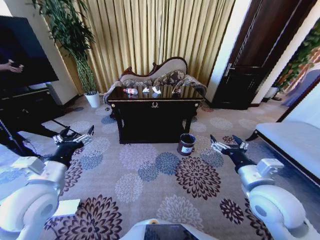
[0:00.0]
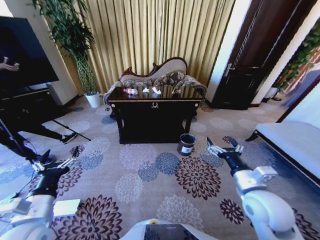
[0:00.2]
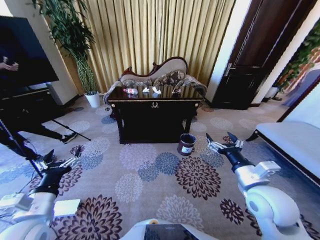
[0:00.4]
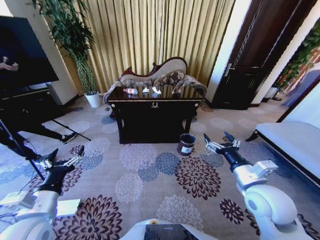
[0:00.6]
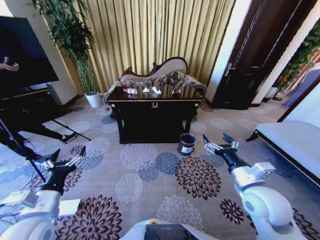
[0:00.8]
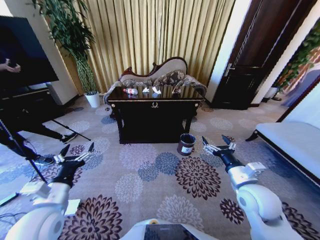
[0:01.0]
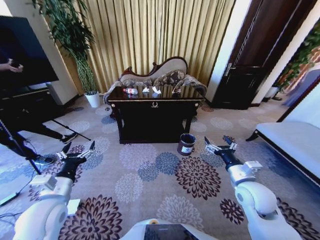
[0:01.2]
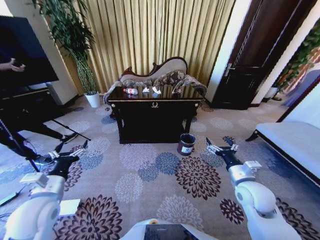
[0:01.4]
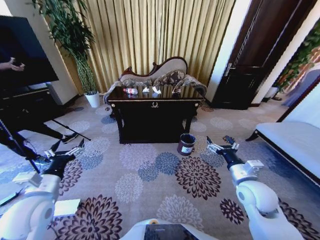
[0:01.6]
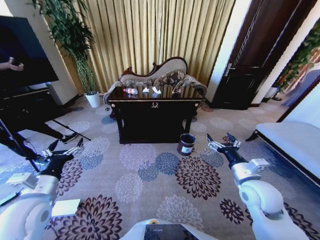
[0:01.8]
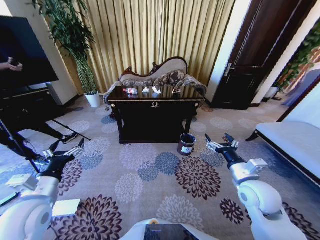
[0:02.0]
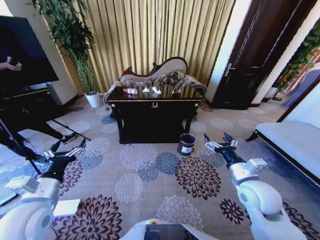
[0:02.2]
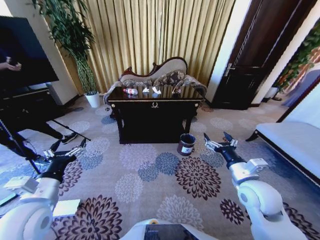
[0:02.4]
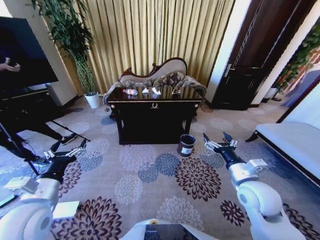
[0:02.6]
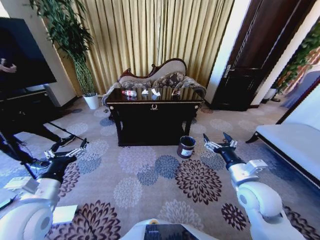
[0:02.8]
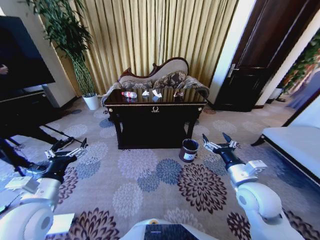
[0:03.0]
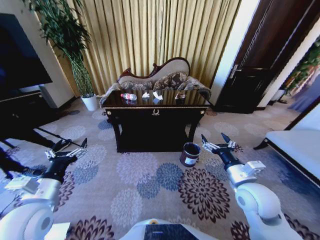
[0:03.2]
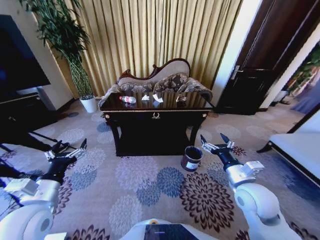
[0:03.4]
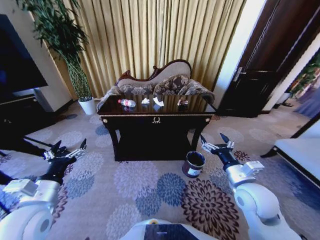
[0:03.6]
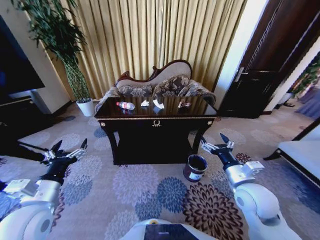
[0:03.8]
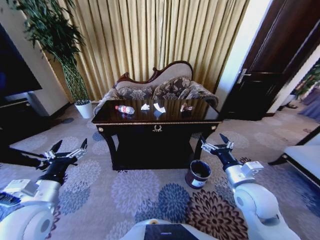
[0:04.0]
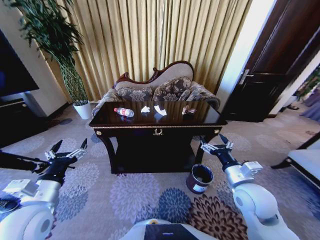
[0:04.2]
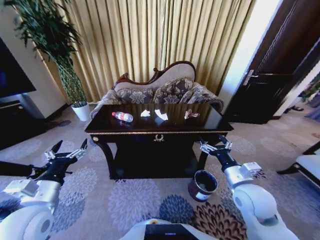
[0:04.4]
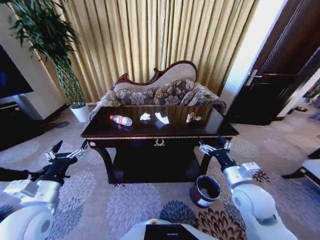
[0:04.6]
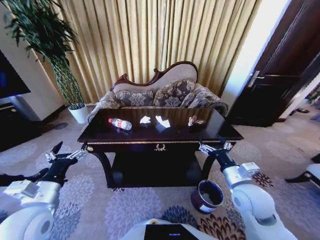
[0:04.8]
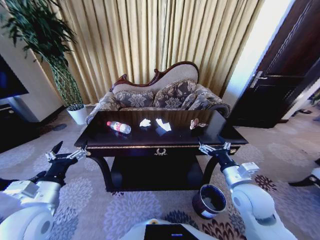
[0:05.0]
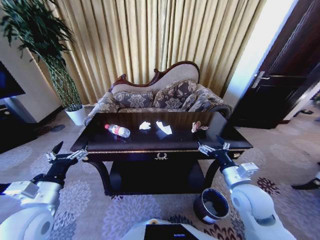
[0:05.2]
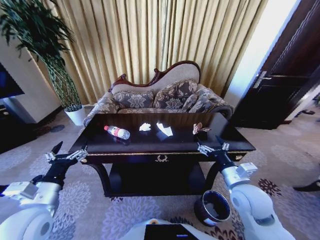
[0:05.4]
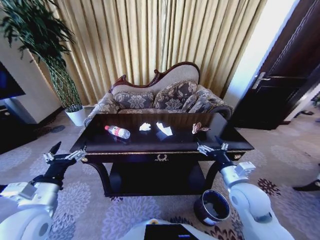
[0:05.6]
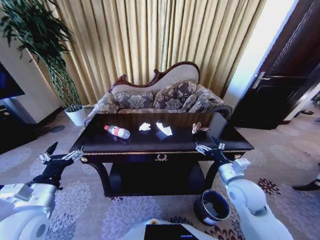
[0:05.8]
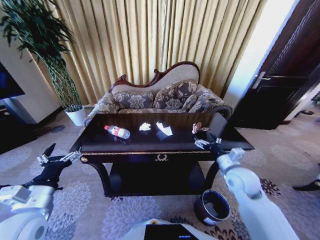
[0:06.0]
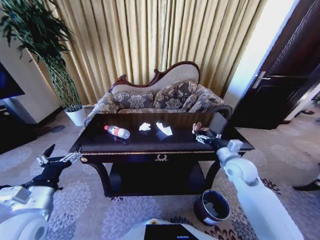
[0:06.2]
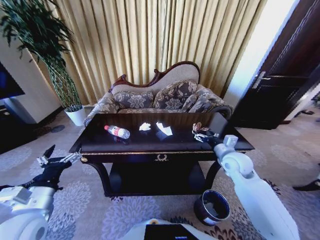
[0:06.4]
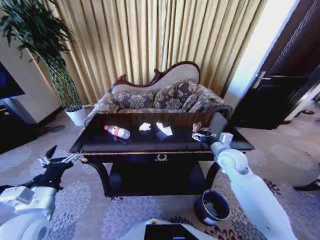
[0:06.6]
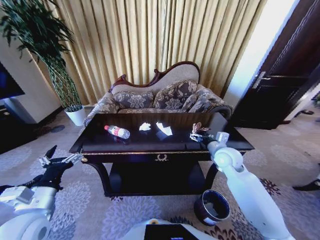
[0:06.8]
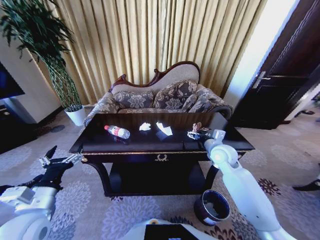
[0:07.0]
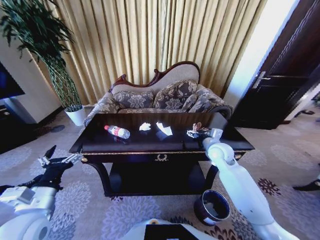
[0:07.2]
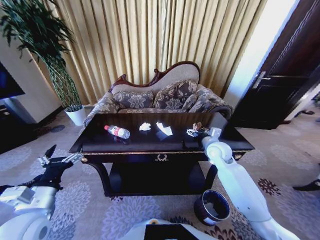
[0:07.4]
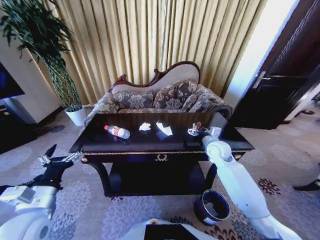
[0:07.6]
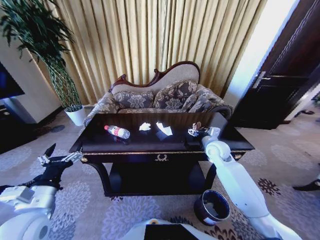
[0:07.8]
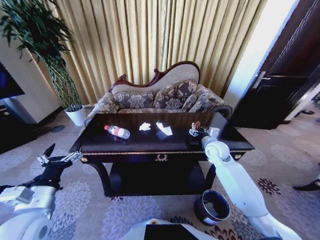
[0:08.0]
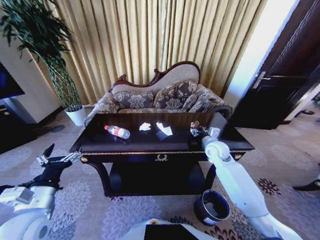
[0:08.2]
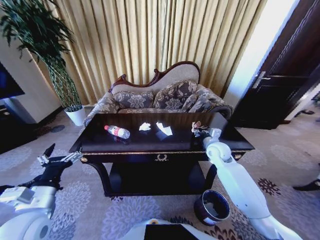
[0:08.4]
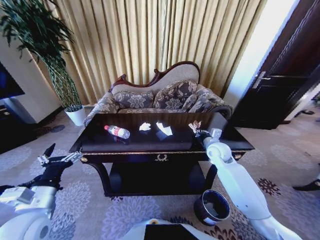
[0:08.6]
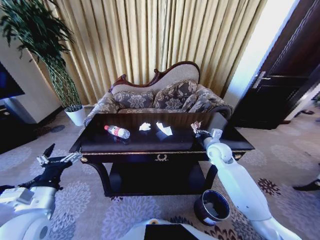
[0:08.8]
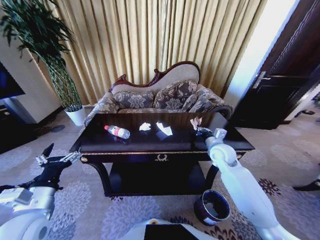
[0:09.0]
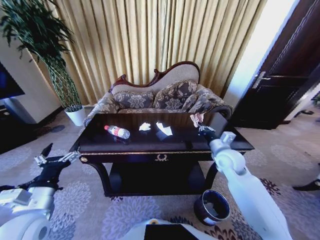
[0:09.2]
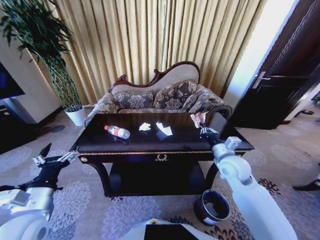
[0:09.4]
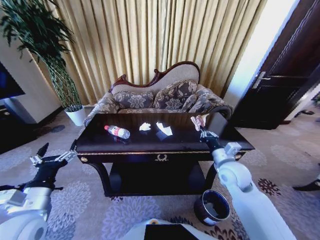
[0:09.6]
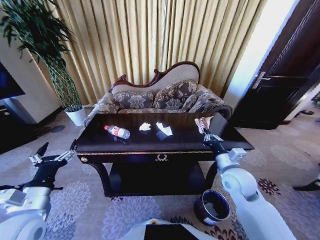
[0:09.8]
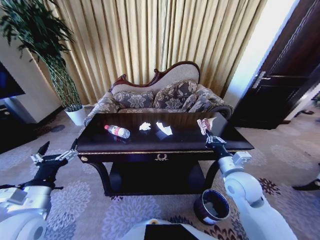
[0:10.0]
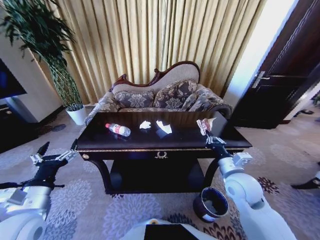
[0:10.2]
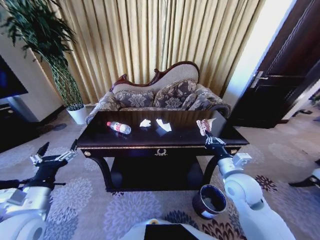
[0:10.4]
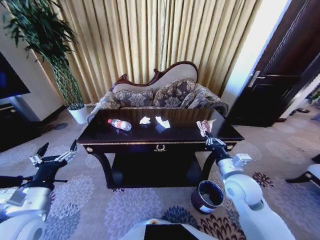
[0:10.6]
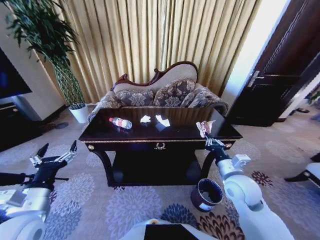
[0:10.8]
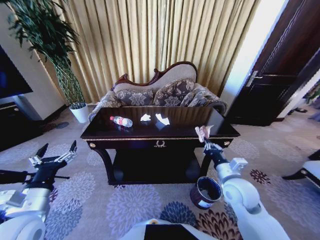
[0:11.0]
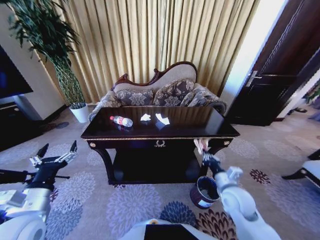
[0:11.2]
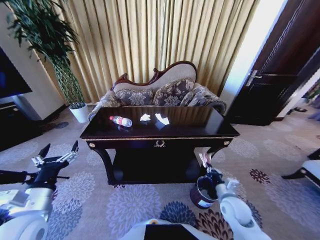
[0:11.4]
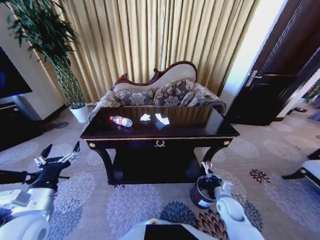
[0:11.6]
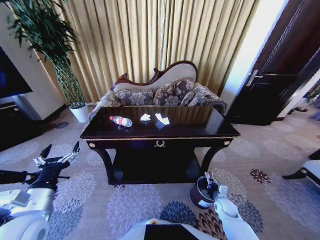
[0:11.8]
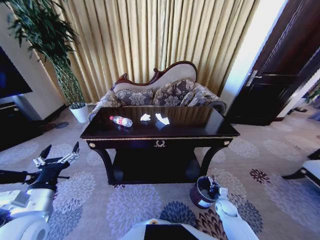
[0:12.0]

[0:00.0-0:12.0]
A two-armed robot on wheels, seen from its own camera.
Task of the whole recording: Move to the front of the table and place the trash on the table into the trash bin.
0:04.4 to 0:06.0: The right gripper is displaced forward by some 5 cm.
0:06.0 to 0:07.6: The right gripper heads forward, covering roughly 15 cm.
0:07.6 to 0:09.0: The right gripper closes.
0:09.0 to 0:10.4: The right gripper moves backward, about 15 cm.
0:10.4 to 0:12.0: The right gripper travels downward by some 35 cm.

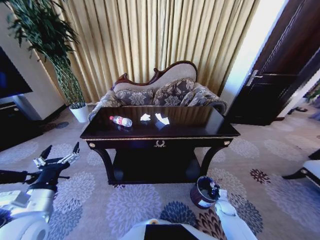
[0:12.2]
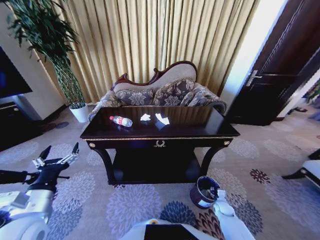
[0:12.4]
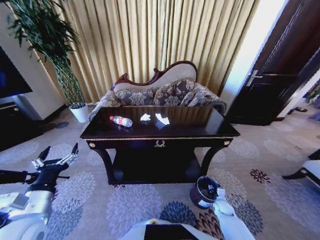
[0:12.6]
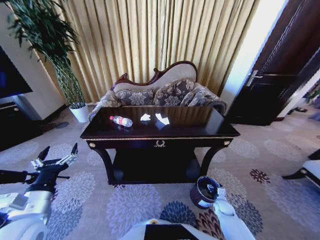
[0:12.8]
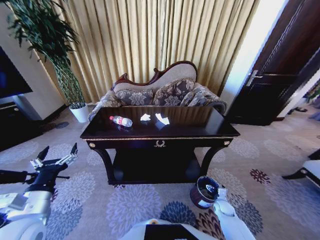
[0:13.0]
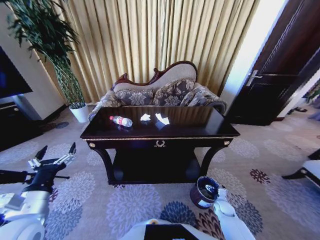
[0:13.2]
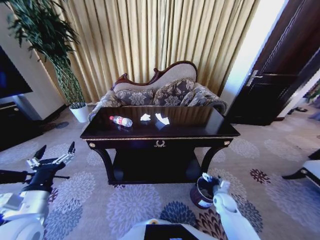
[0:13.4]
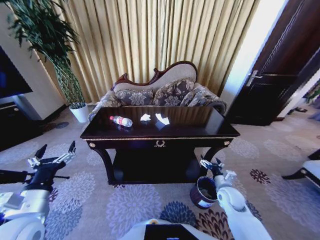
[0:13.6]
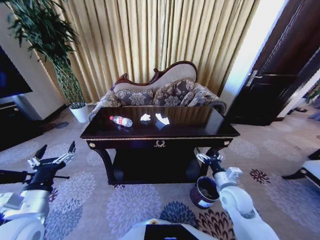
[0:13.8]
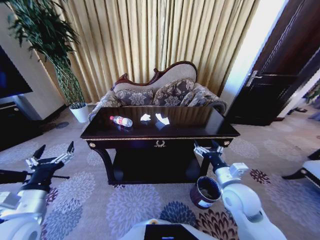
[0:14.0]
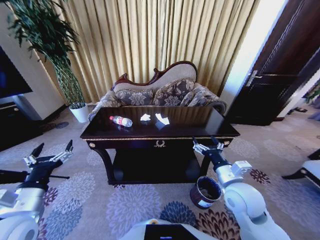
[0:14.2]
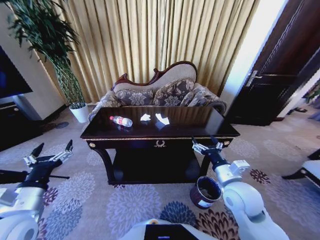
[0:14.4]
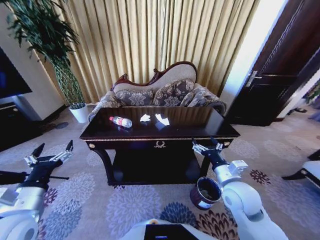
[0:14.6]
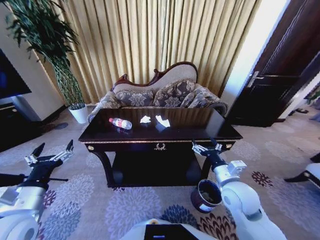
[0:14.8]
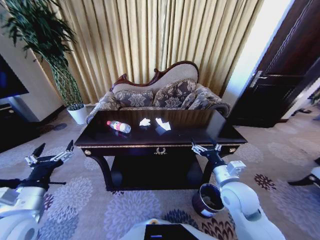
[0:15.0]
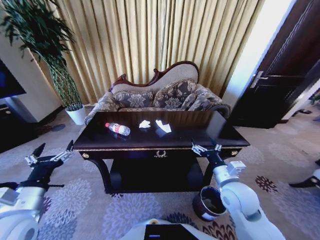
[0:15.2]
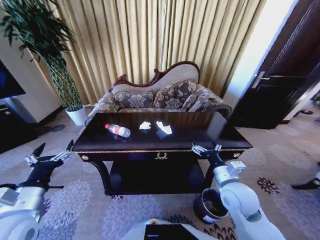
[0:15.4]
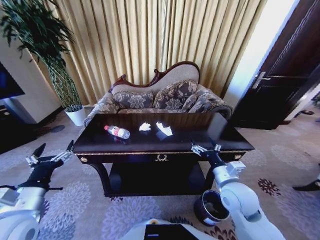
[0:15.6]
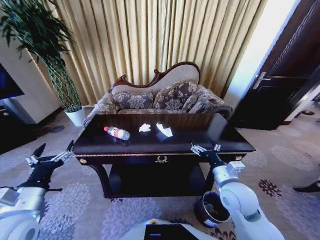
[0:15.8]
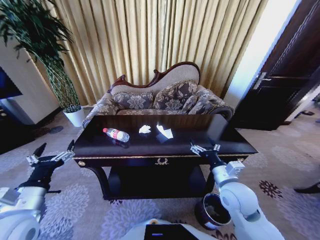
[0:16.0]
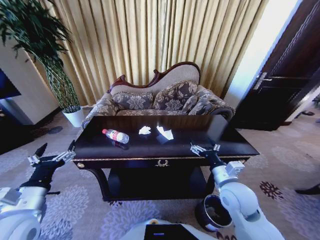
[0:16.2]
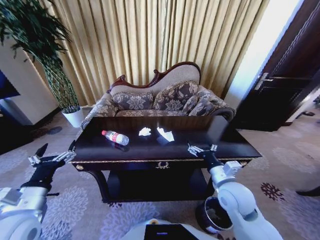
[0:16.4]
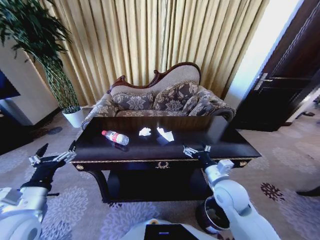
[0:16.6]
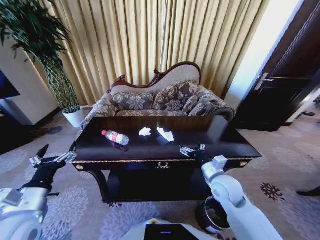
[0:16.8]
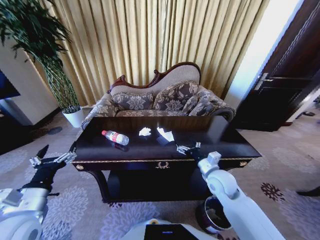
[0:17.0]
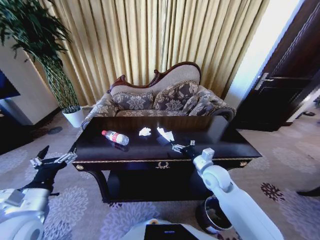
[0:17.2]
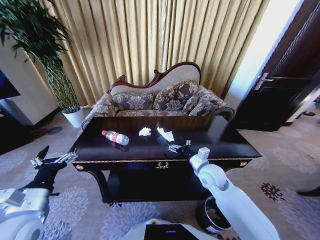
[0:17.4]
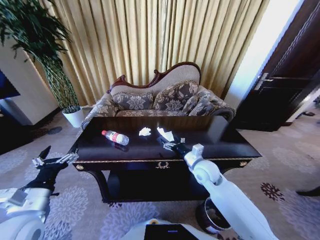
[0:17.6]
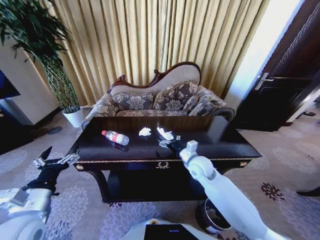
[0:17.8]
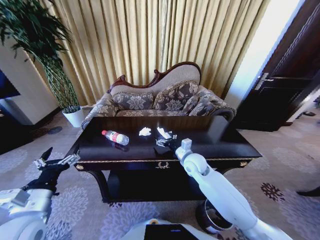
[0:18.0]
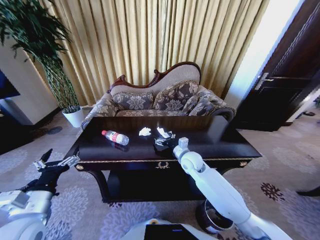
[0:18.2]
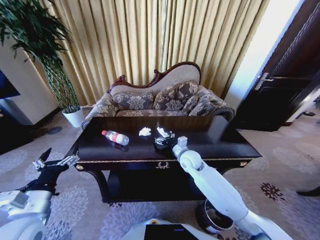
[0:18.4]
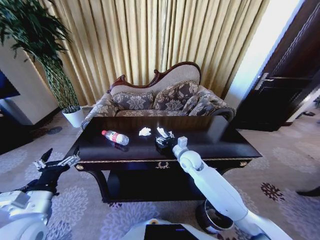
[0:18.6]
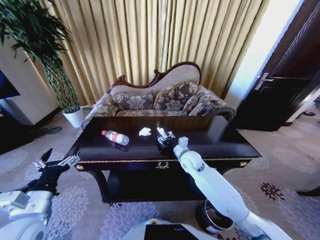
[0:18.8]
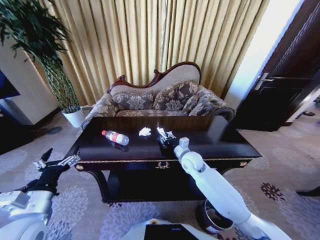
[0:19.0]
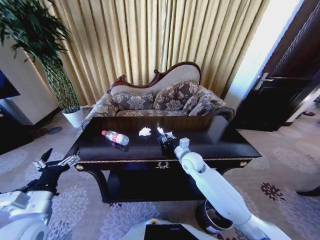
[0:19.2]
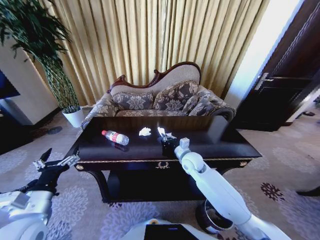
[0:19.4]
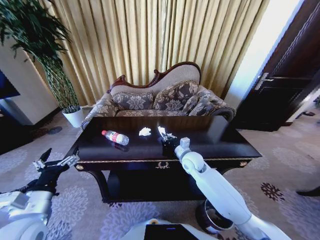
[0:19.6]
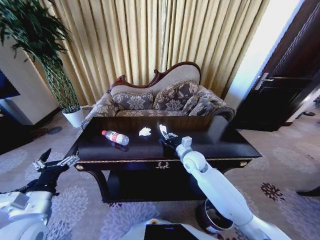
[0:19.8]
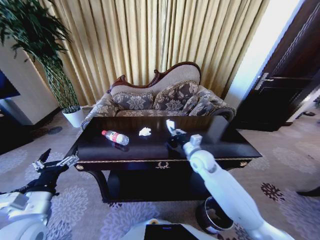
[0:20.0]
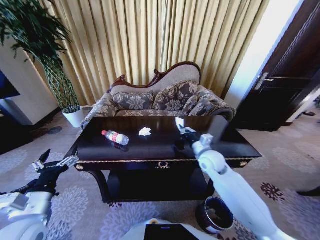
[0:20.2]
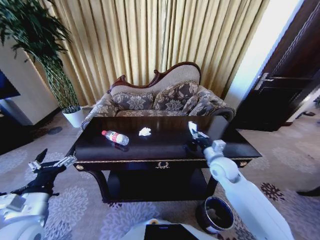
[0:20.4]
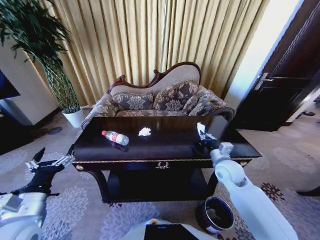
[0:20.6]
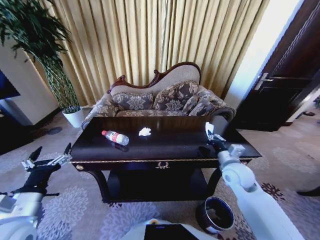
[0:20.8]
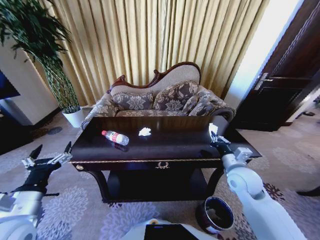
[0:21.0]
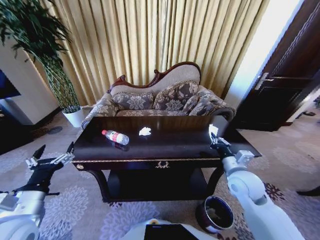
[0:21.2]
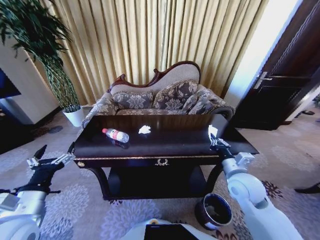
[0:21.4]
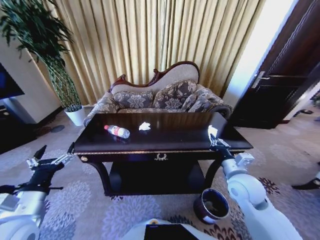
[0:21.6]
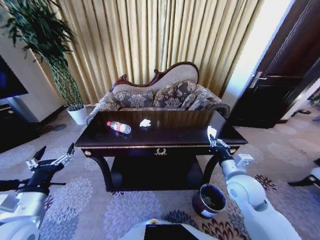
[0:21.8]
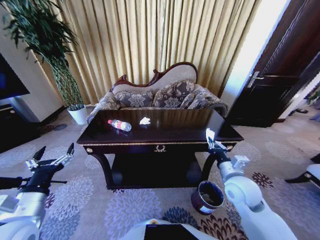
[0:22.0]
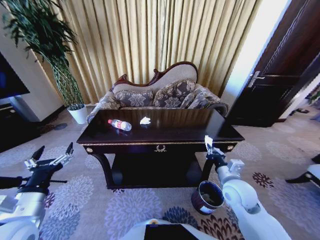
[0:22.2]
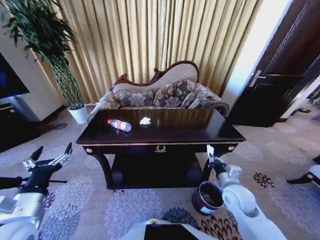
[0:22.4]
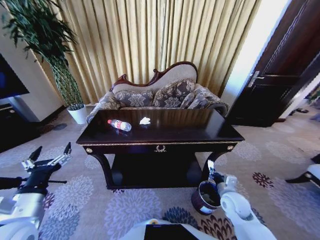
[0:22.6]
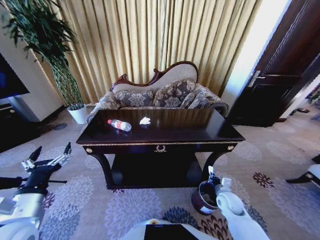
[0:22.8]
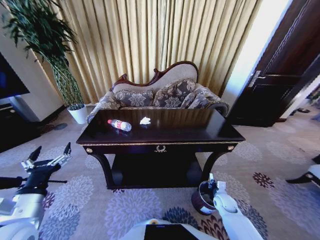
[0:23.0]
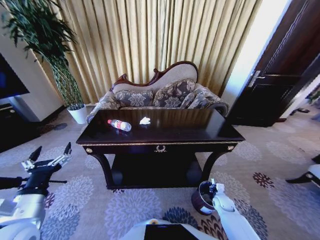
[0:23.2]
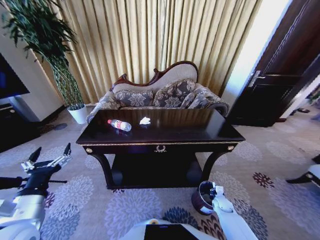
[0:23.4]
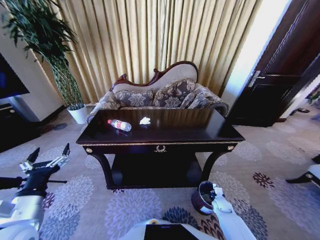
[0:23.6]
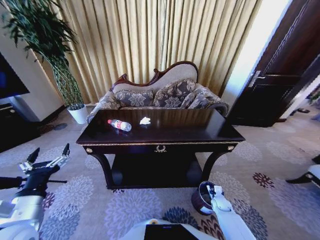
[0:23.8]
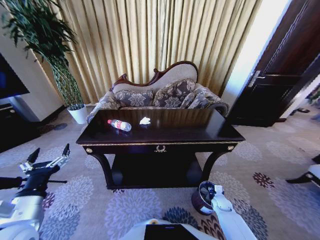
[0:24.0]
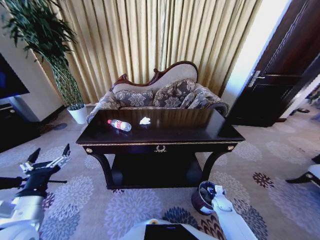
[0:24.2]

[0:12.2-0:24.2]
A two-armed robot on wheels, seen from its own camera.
Task of the whole recording: Move to the front of the table and place the trash on the table into the trash bin.
0:12.2 to 0:13.8: The right gripper shifts approximately 25 cm upward, and opens up.
0:13.8 to 0:15.2: The right gripper is displaced upward by about 10 cm.
0:16.6 to 0:18.2: The right gripper travels forward and to the left by about 15 cm.
0:18.2 to 0:19.8: The right gripper closes its fingers.
0:19.8 to 0:21.2: The right gripper is displaced to the right and backward by some 20 cm.
0:21.2 to 0:22.6: The right gripper travels downward by some 15 cm.
0:22.6 to 0:24.2: The right gripper heads downward, covering approximately 20 cm, and opens up.
